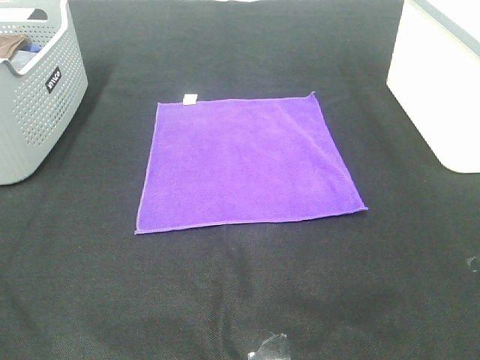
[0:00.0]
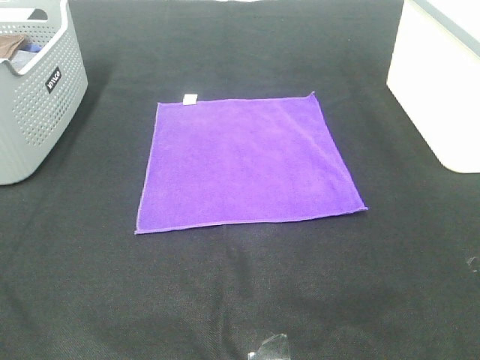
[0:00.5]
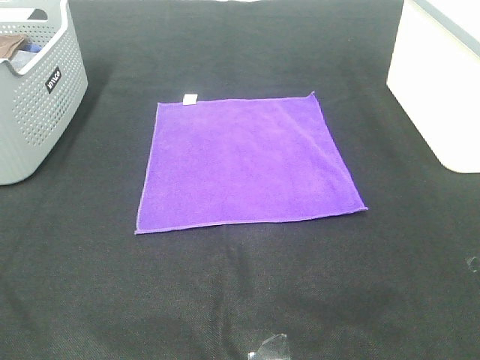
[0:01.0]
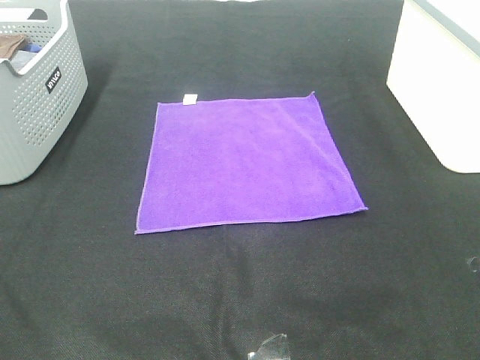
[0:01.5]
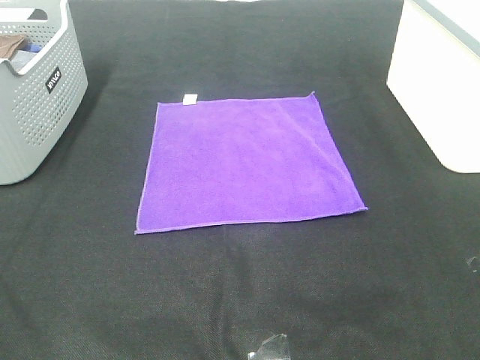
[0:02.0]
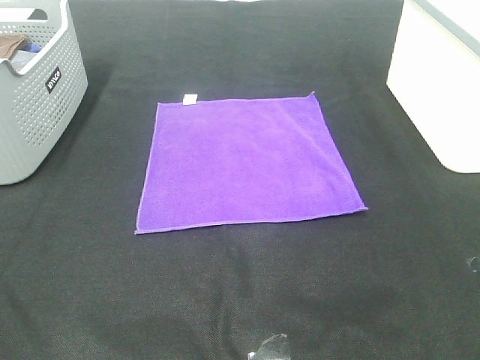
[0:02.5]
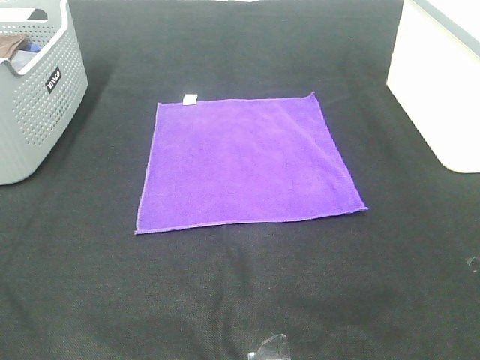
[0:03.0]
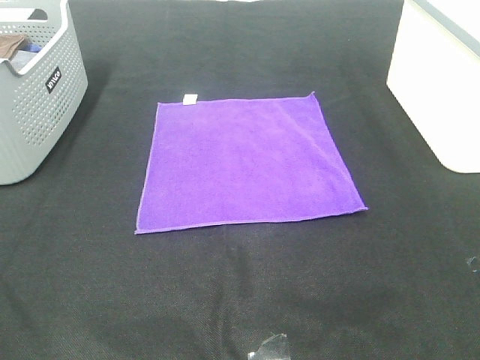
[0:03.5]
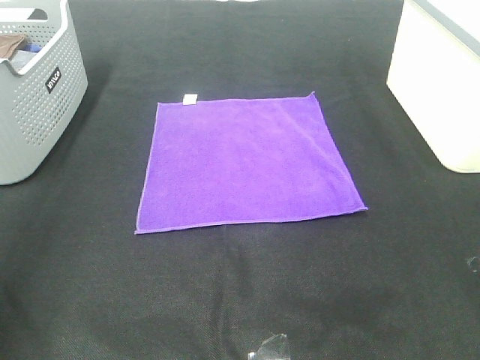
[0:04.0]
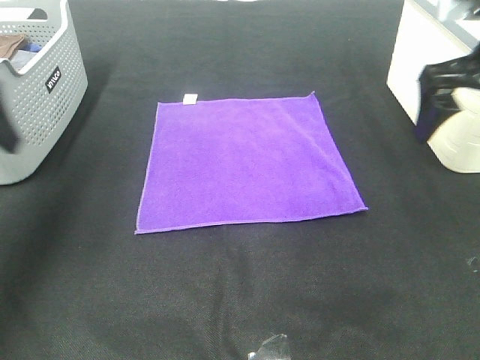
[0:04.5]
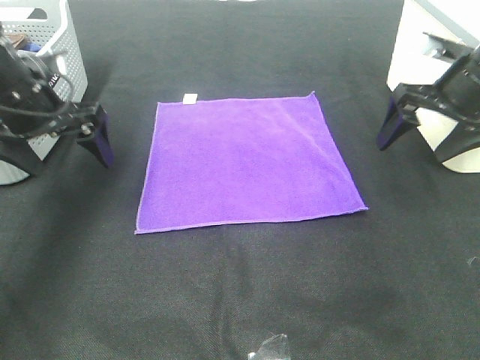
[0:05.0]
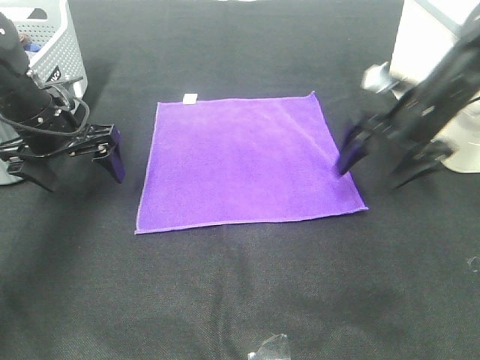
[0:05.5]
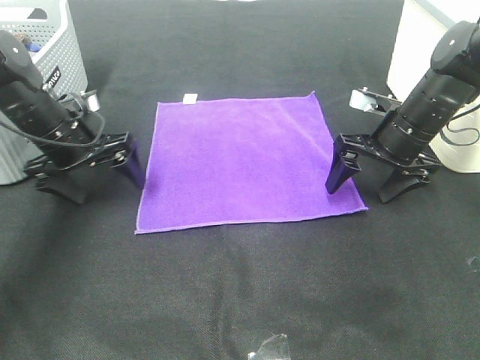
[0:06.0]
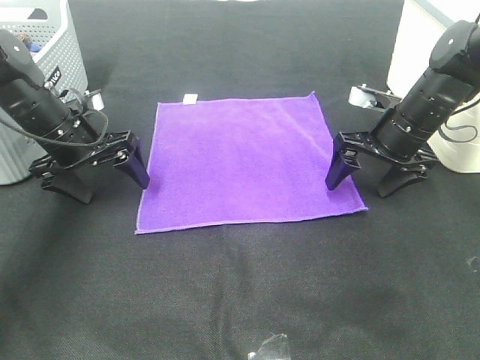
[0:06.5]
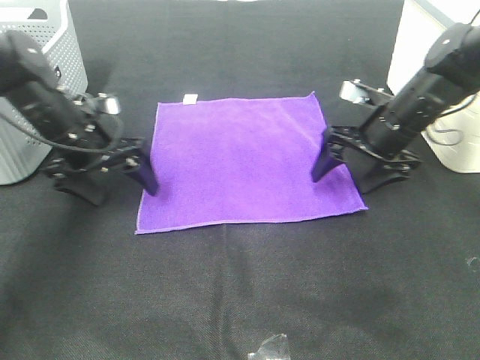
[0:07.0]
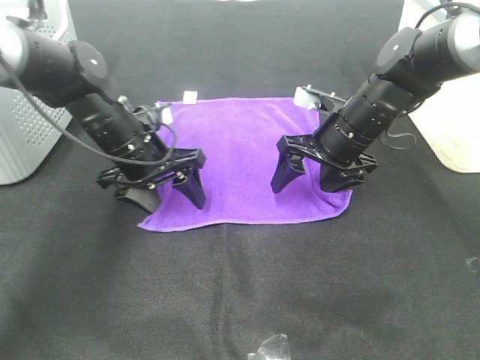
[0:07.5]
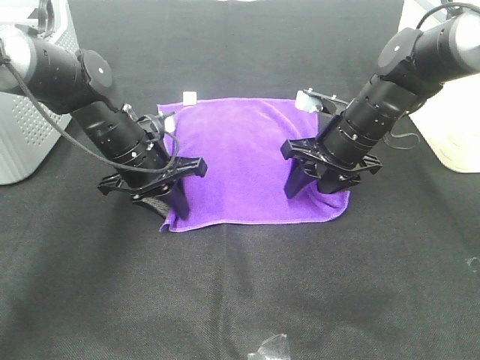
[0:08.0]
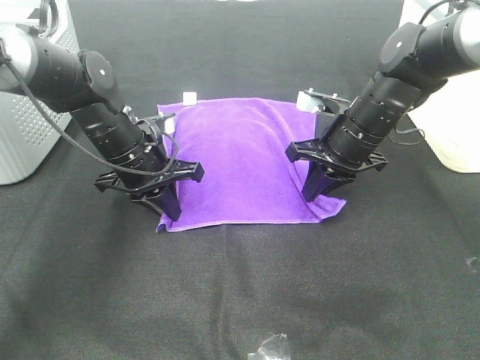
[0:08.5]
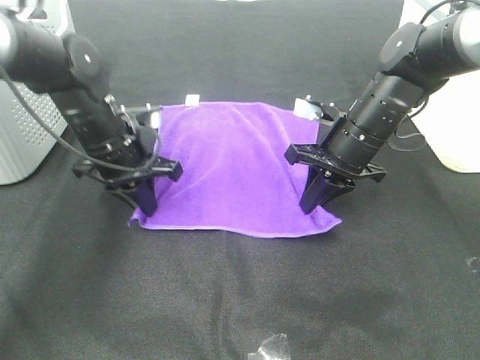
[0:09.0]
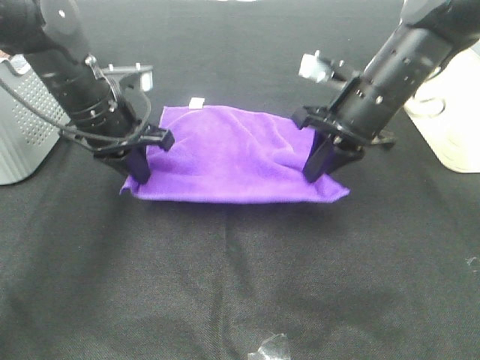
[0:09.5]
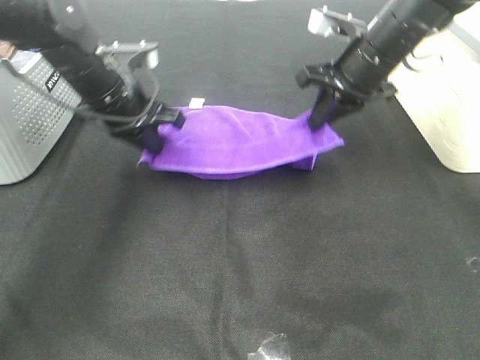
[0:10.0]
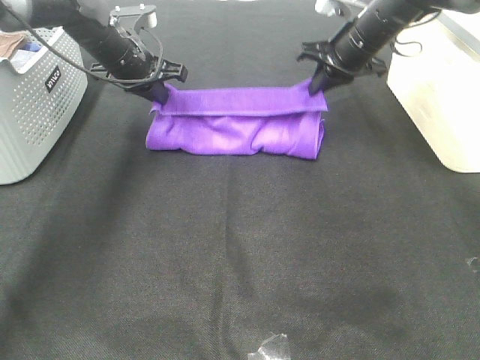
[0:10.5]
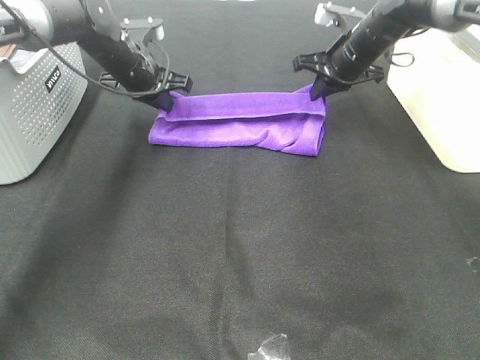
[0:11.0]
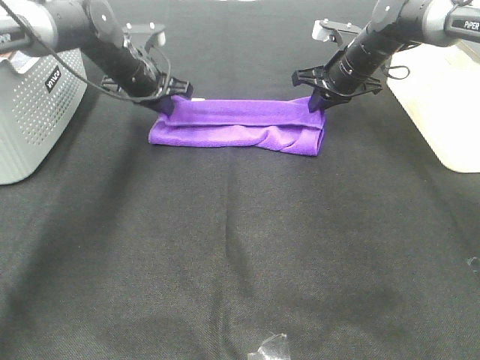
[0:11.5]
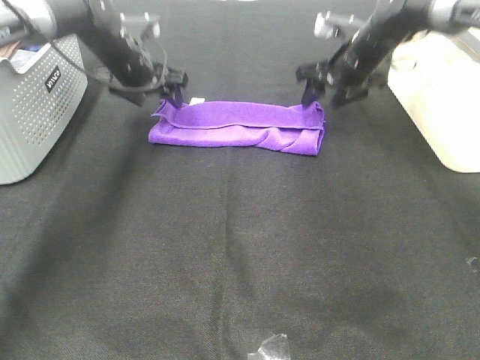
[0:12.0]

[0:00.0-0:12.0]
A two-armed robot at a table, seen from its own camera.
Task of the whole recording: Fold towels.
Step, 0:00.0 to 0:08.0: Left hand: grab the bottom left corner of purple towel.
Step, 0:00.0 to 0:08.0: Right hand: grab the bottom right corner of purple towel.
Step, 0:08.5 to 0:11.5: Left hand: fold the purple towel up.
Step, 0:08.5 to 0:11.5: Right hand: fold the purple towel up.
0:00.0 to 0:02.0: Both grippers stay put.
0:02.0 to 0:04.0: The left gripper goes some 15 cm forward.
0:04.0 to 0:06.0: The right gripper travels downward and forward by some 30 cm; the left gripper moves forward and downward, about 30 cm.
0:06.0 to 0:08.0: The right gripper travels to the left by about 5 cm, and closes up. The left gripper travels to the right by approximately 10 cm, and closes its fingers.
0:08.0 to 0:10.0: Both grippers move upward, about 10 cm. The right gripper closes its fingers.
0:10.0 to 0:12.0: The two grippers go about 10 cm forward. The right gripper opens its fingers. Meanwhile the left gripper opens up.

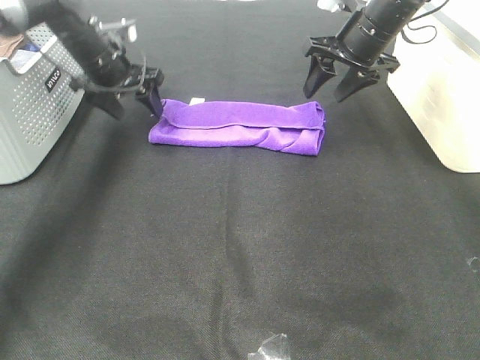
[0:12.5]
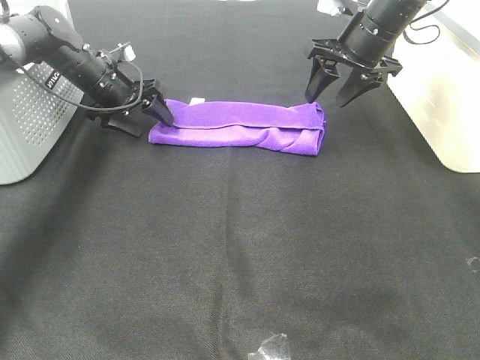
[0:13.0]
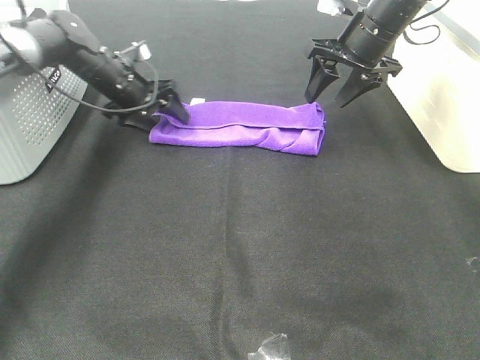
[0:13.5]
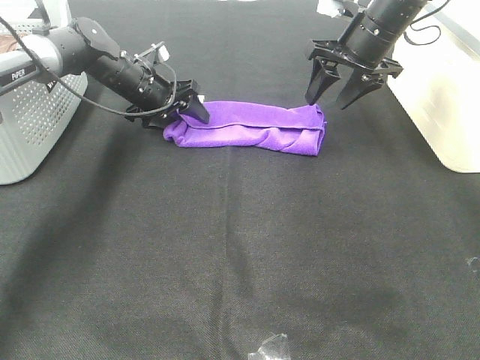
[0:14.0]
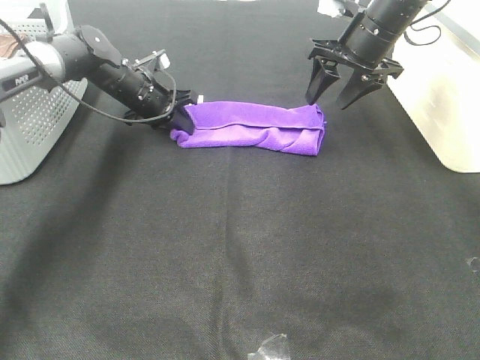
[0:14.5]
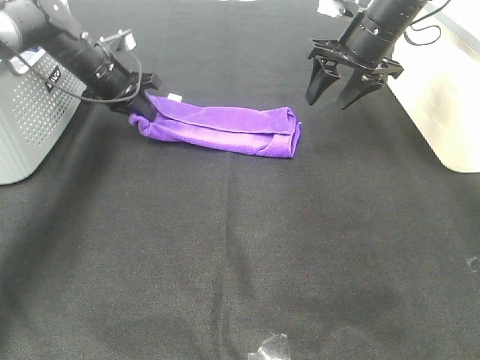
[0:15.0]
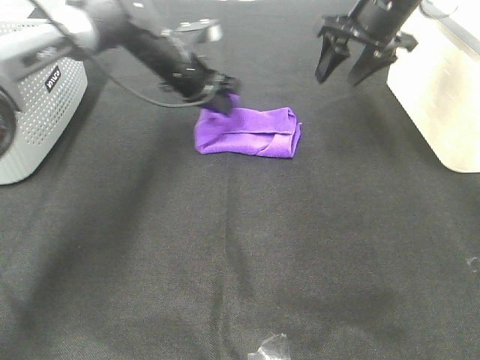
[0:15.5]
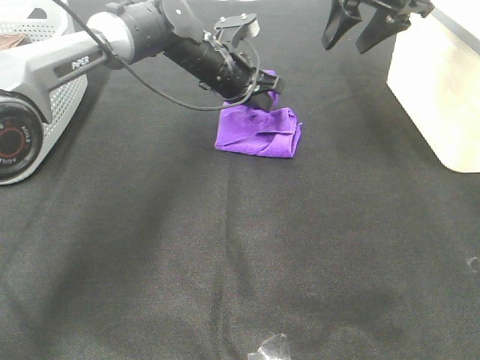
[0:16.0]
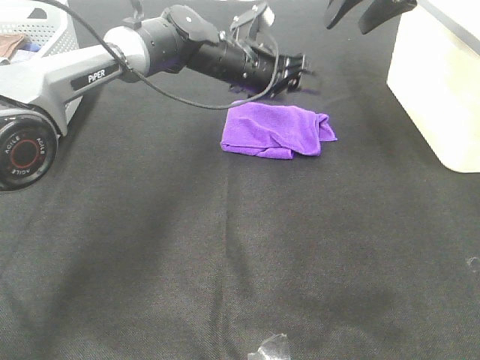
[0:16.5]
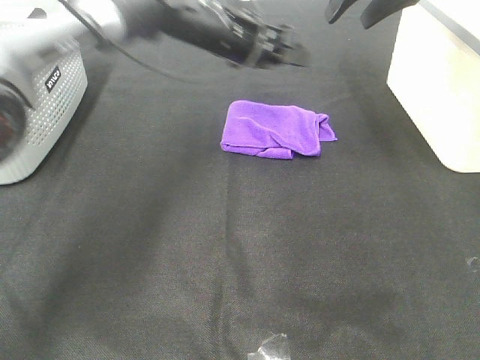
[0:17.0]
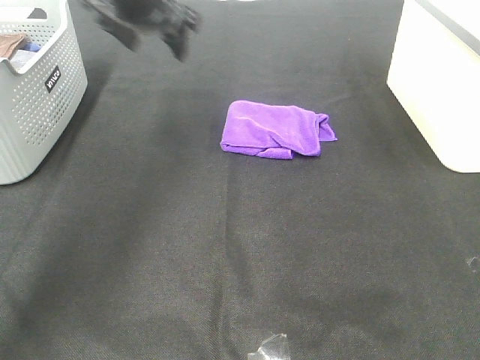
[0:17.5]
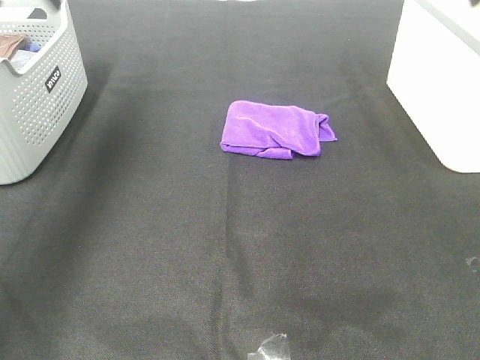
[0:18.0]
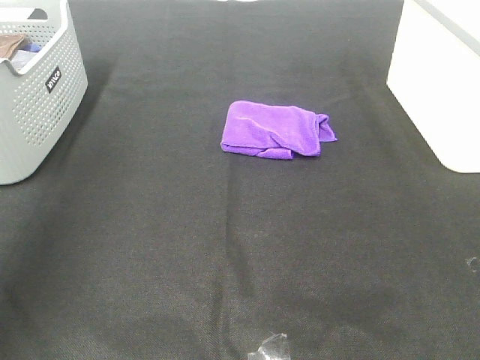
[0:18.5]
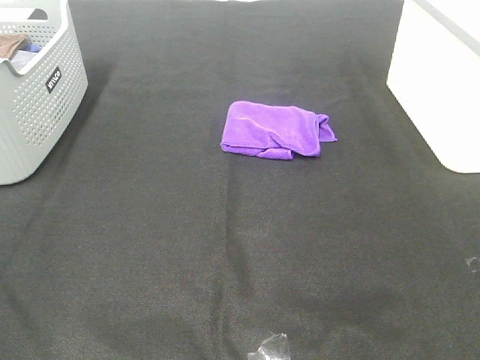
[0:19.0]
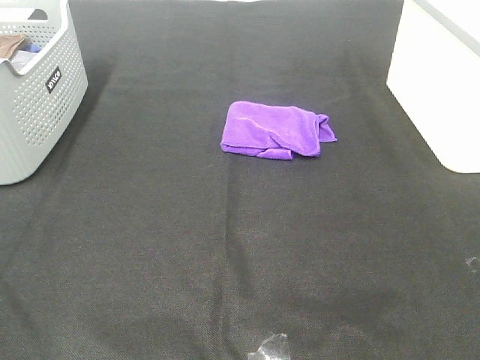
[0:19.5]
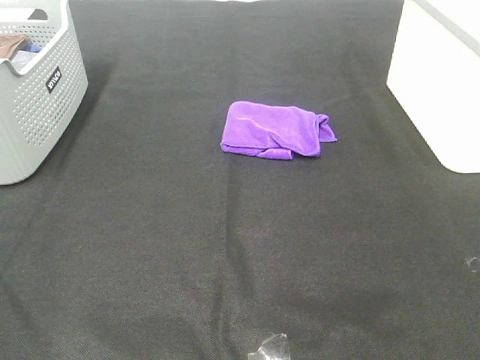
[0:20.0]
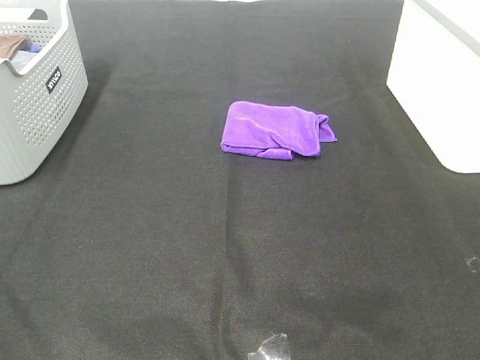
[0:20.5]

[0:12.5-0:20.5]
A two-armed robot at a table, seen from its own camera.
Task of the whole recording: Fold towels.
Step, 0:12.5 to 0:16.0: Left hand: fold the purple towel from left to right.
0:12.5 to 0:14.5: The left gripper heads downward, covering approximately 5 cm, and closes its fingers.
0:14.5 to 0:16.5: The right gripper heads upward, covering about 10 cm. The left gripper is displaced to the right by roughly 20 cm, and opens.
0:16.5 to 0:18.5: The left gripper heads backward, to the left and upward, covering some 50 cm; the right gripper shifts about 40 cm backward.
0:18.5 to 0:20.5: The left gripper heads backward and downward, covering some 20 cm.
